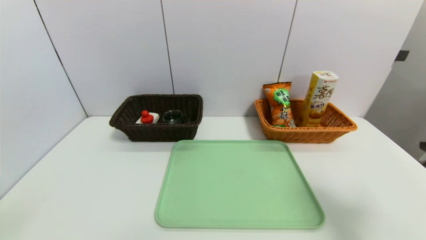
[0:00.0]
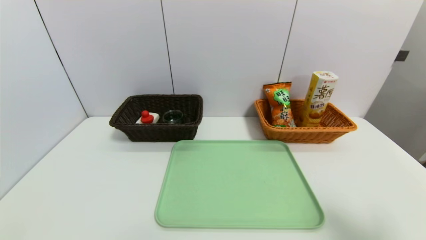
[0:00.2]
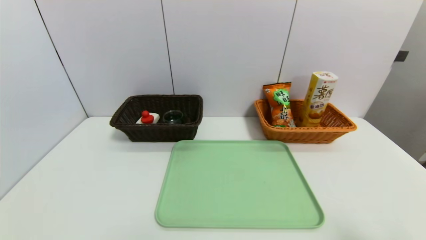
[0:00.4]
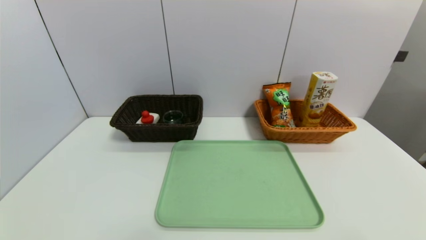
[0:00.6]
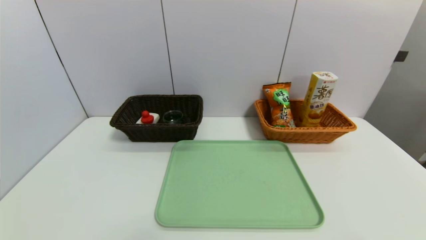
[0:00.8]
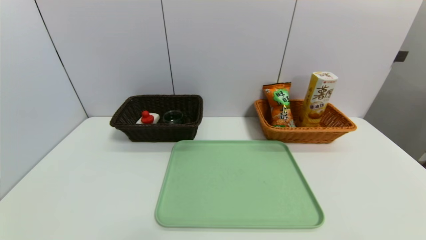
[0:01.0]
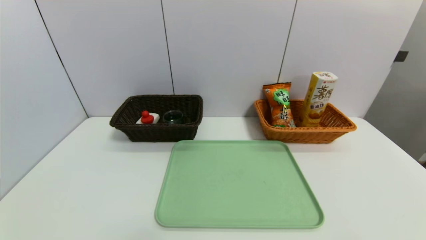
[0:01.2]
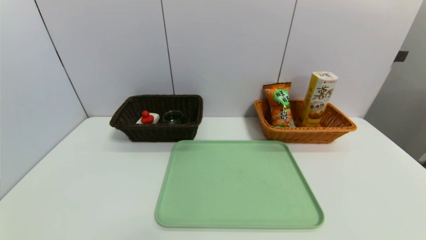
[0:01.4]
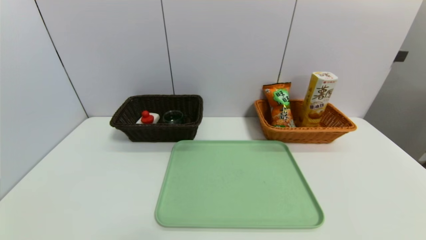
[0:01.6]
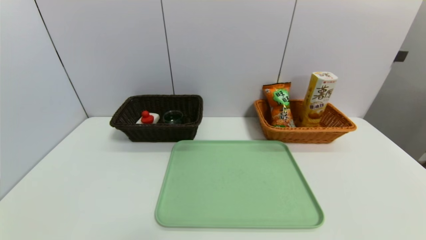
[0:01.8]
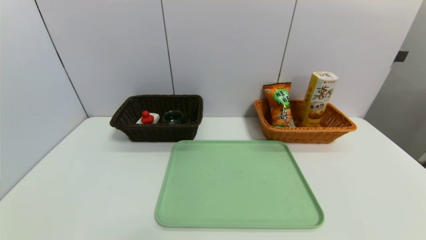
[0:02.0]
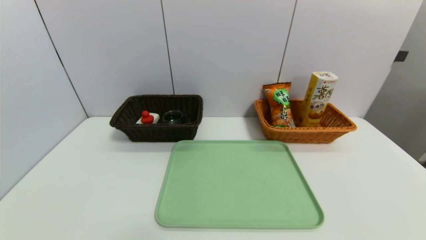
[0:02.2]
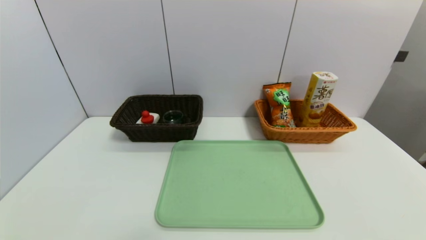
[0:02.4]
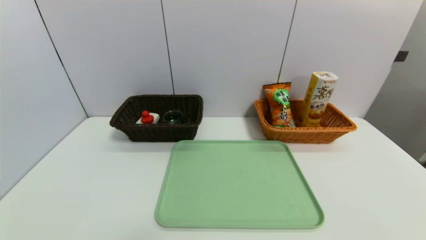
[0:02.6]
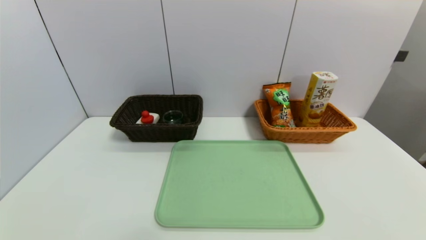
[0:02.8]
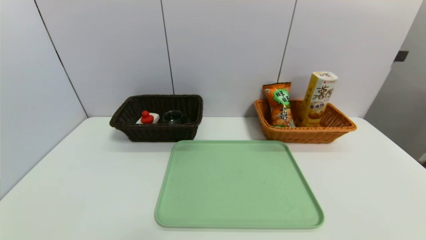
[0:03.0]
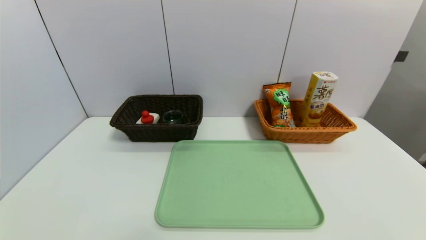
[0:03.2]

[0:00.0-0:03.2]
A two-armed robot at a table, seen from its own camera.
Task of the whole recording: place the food in the right basket with the right gripper, and place the non food items in the left basket with the left gripper.
0:00.0 to 0:01.6: The left gripper goes approximately 15 cm downward and backward. The right gripper moves backward and downward, some 20 cm.
